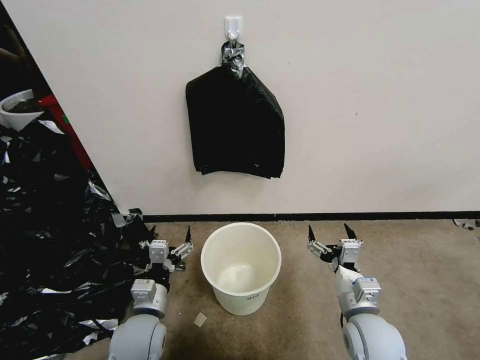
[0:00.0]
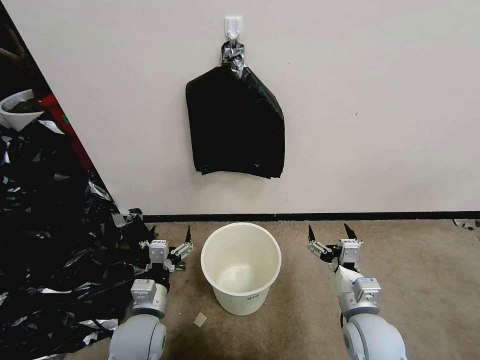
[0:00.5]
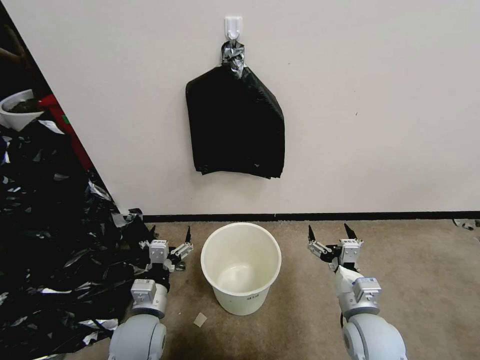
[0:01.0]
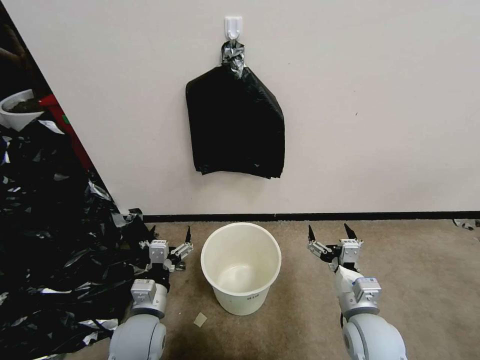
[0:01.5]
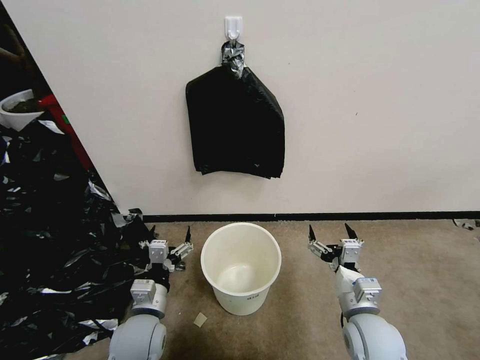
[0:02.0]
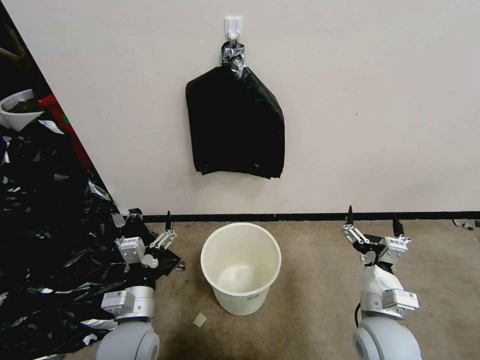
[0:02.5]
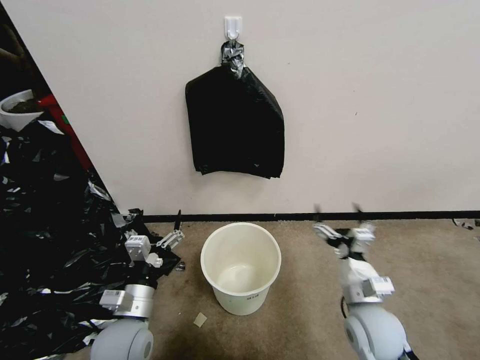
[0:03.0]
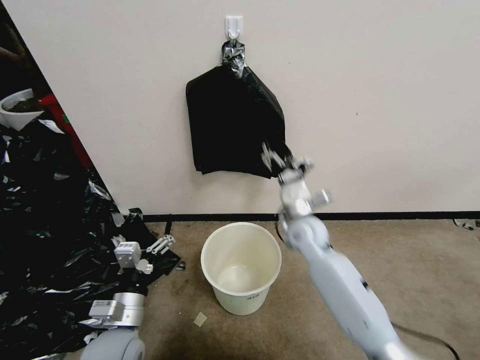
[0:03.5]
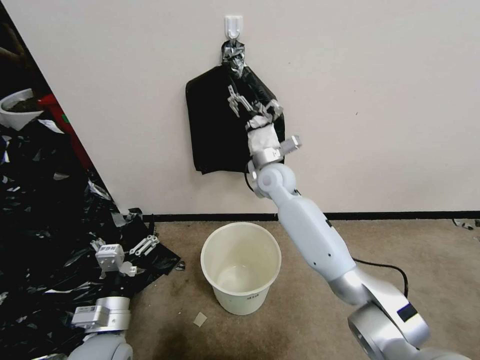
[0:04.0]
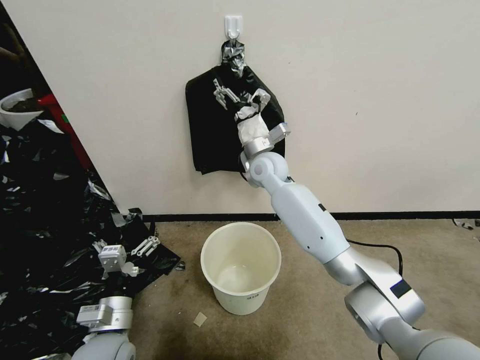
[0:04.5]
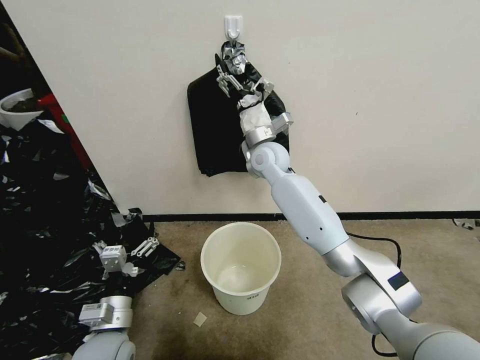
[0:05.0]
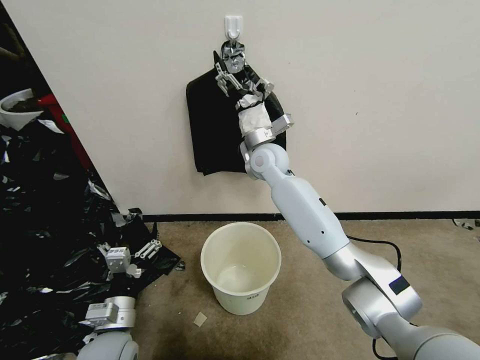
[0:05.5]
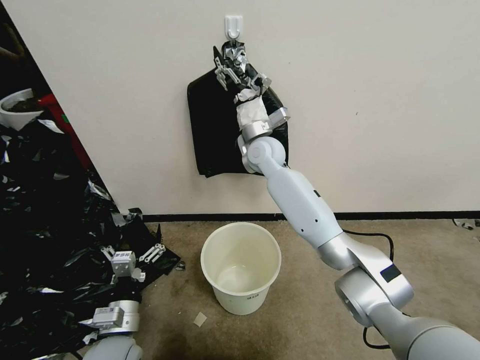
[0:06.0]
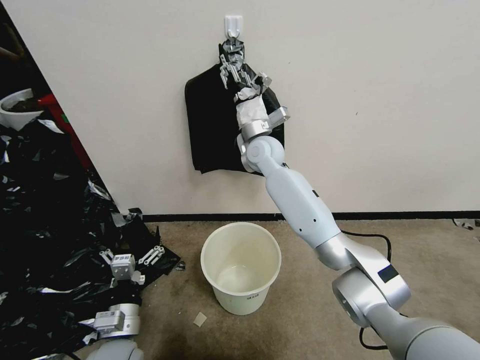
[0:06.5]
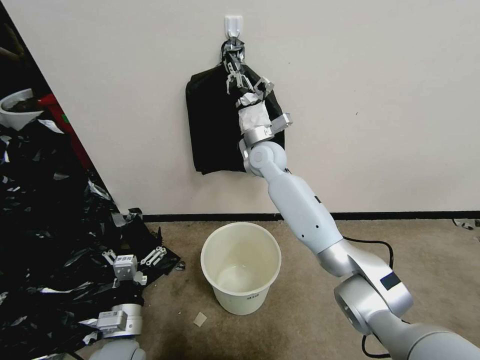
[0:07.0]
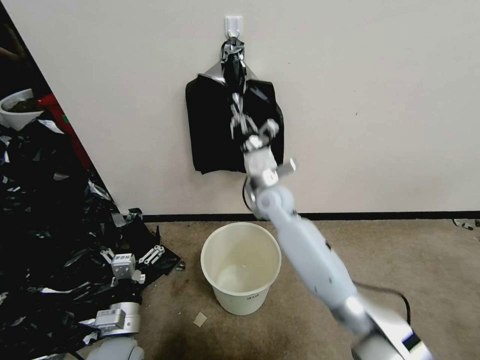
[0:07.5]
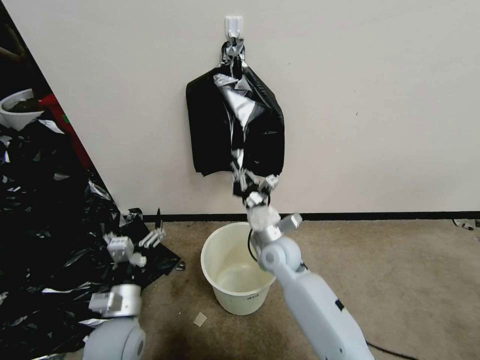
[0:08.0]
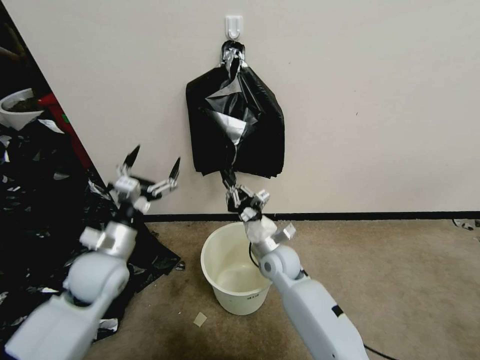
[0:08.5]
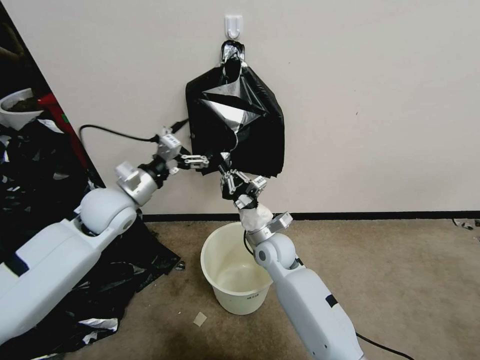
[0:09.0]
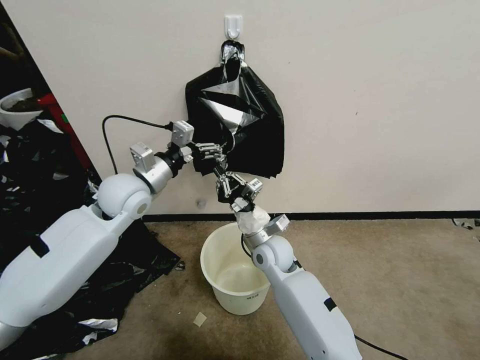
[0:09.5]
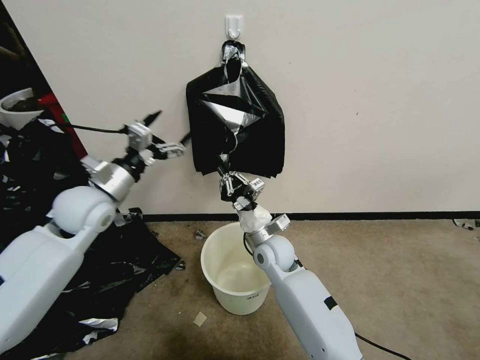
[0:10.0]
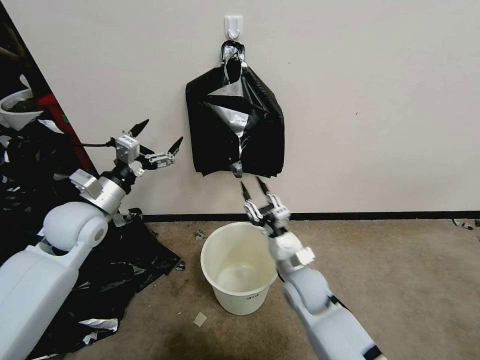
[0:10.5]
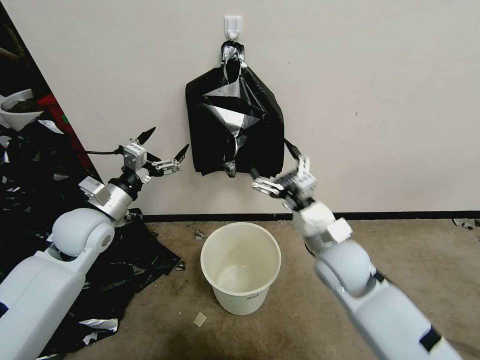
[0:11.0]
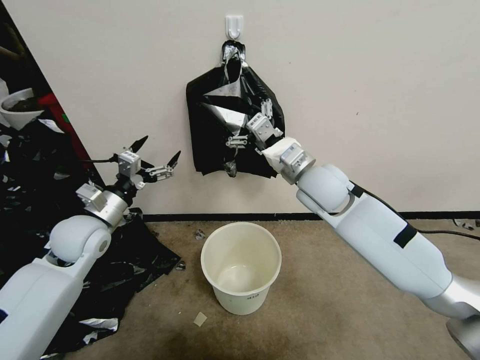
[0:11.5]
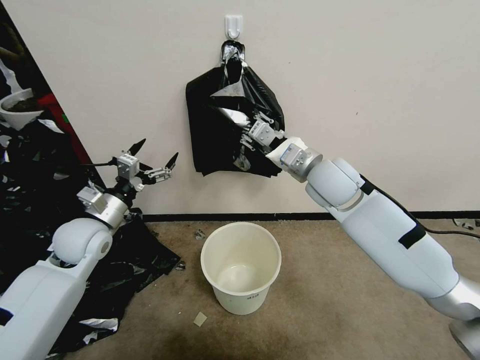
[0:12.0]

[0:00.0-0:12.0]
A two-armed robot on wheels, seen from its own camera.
Task of the whole recording: Place a trash bag onto the trash bin.
0:02.0 to 0:04.0: The left gripper moves approximately 5 cm. The right gripper is displaced forward, to the left and upward by approximately 40 cm.
0:04.0 to 0:06.0: The right gripper changes place by roughly 5 cm.
0:06.0 to 0:08.0: The right gripper is displaced backward and downward by some 25 cm, and closes up.
0:08.0 to 0:10.0: The left gripper travels forward and upward by roughly 25 cm.
0:10.0 to 0:12.0: The left gripper goes some 5 cm downward. Meanwhile the right gripper moves upward and to the right, about 25 cm, and opens its fingers.

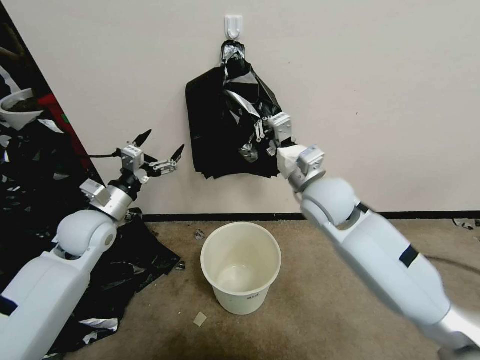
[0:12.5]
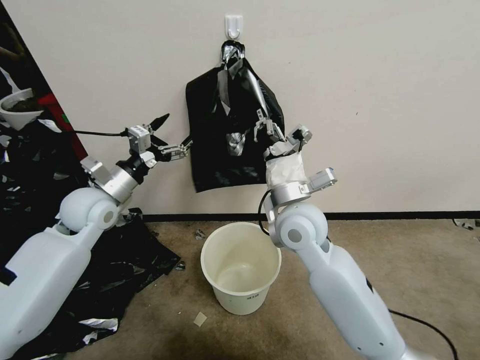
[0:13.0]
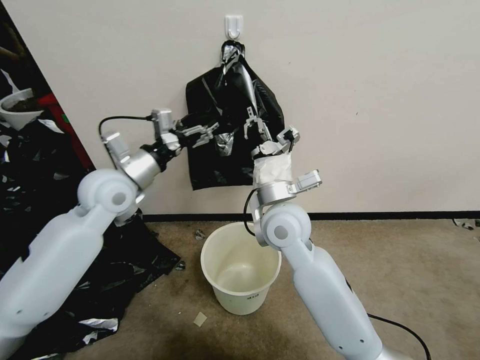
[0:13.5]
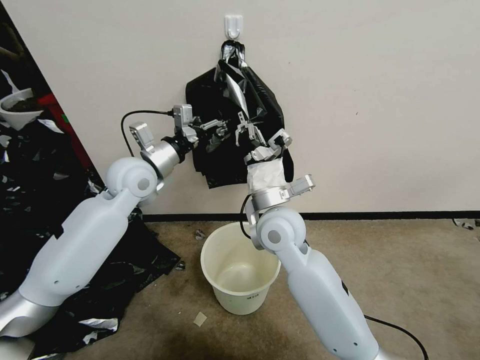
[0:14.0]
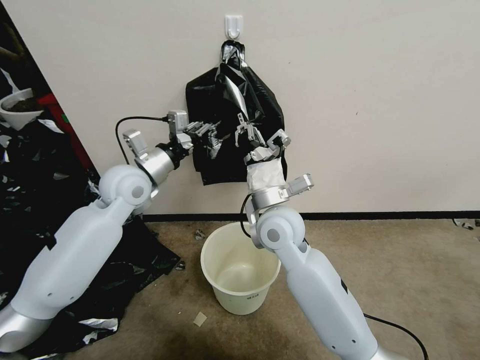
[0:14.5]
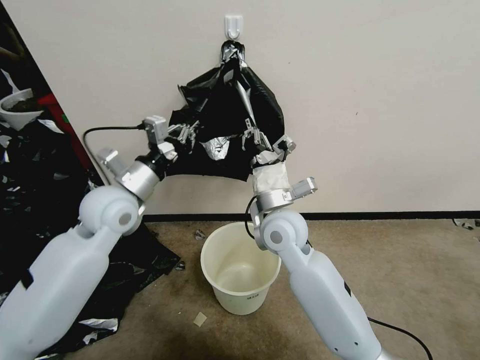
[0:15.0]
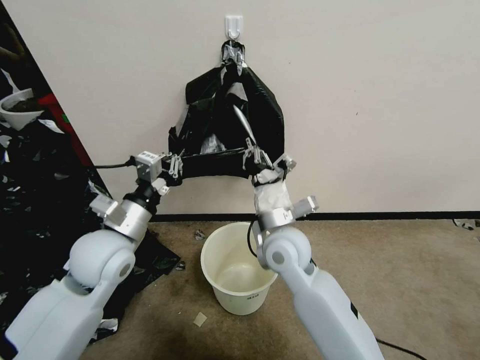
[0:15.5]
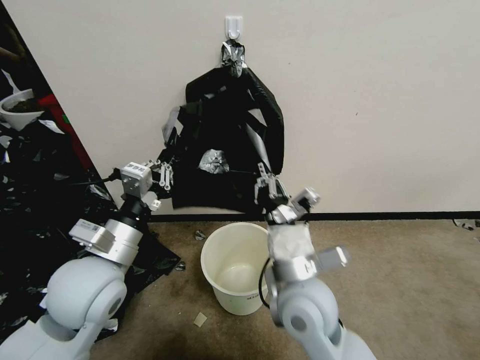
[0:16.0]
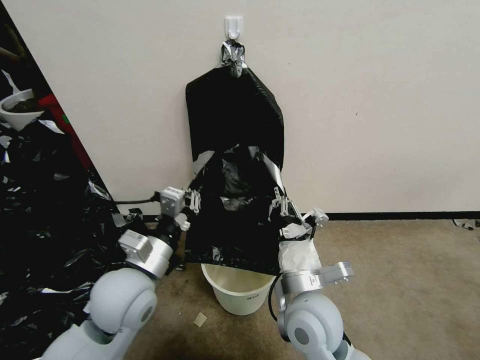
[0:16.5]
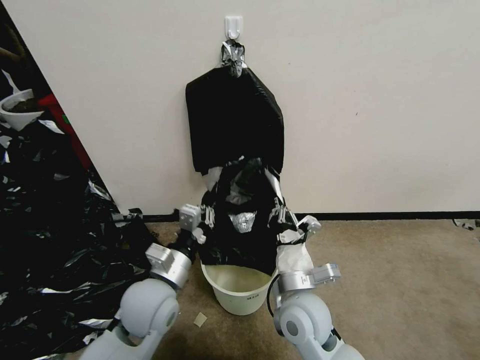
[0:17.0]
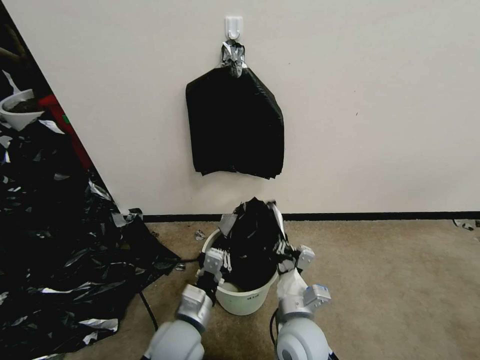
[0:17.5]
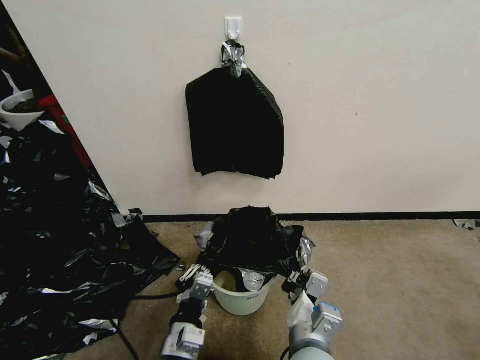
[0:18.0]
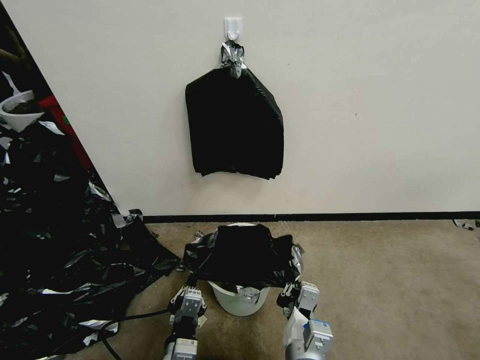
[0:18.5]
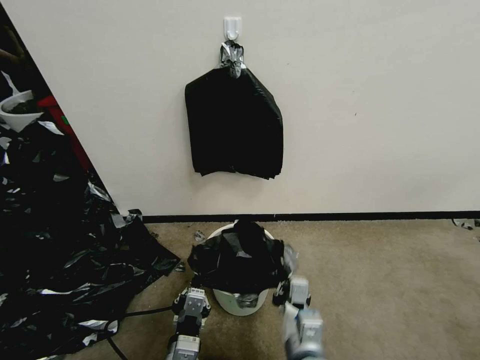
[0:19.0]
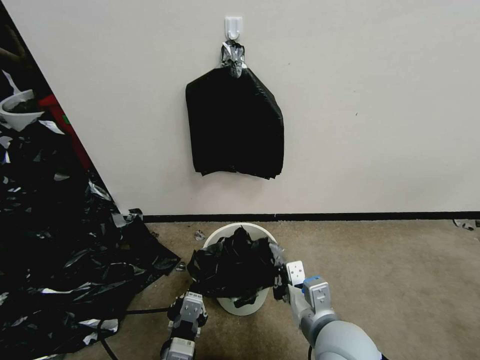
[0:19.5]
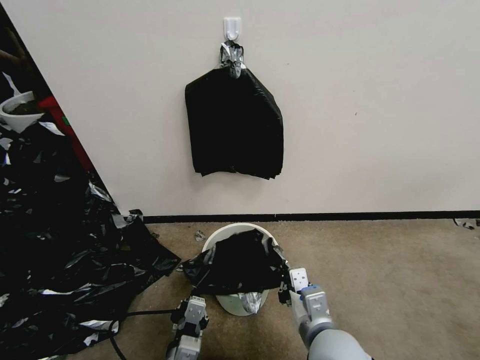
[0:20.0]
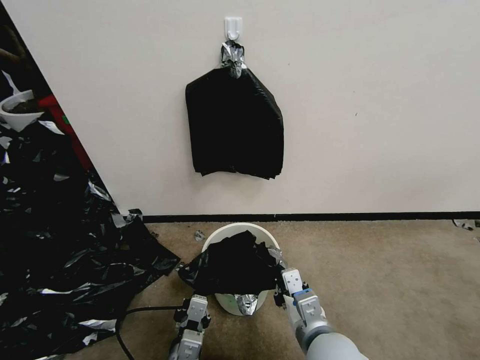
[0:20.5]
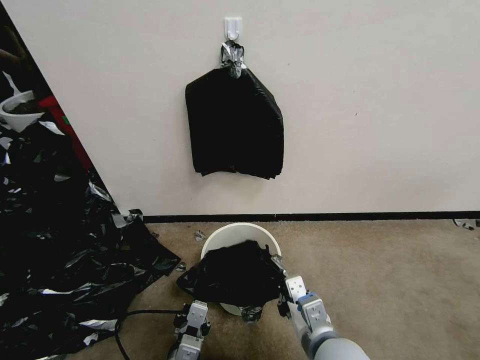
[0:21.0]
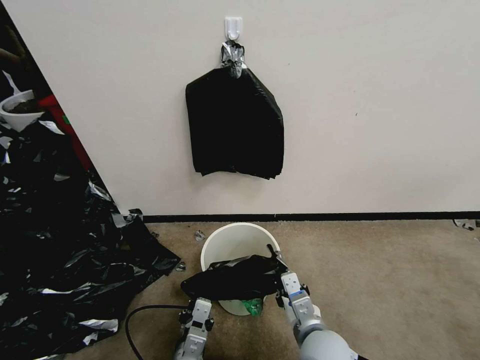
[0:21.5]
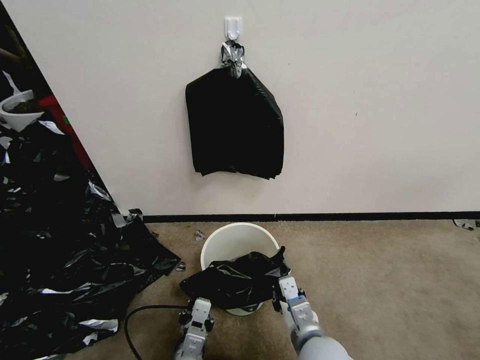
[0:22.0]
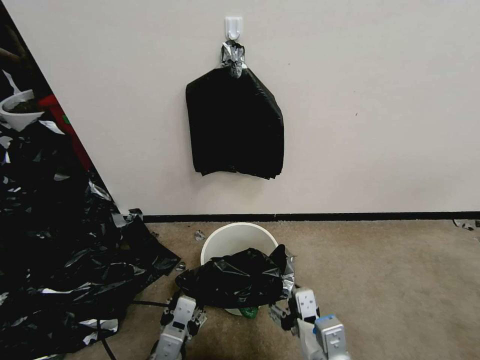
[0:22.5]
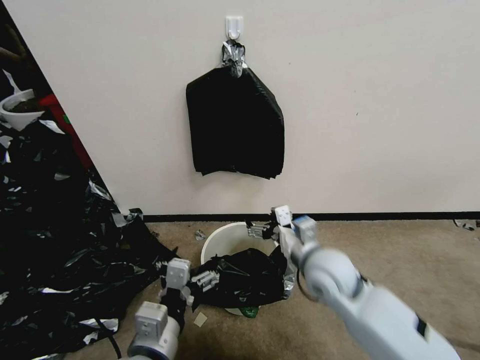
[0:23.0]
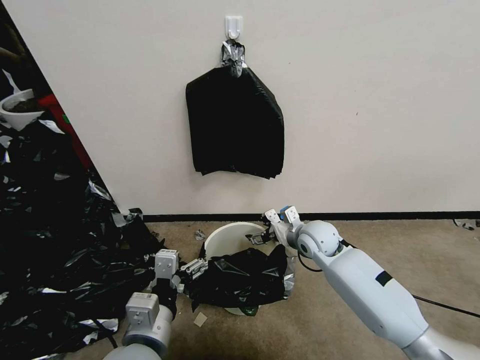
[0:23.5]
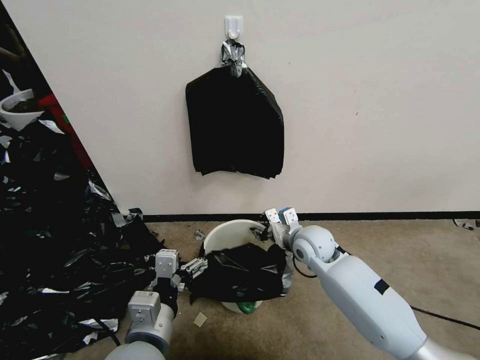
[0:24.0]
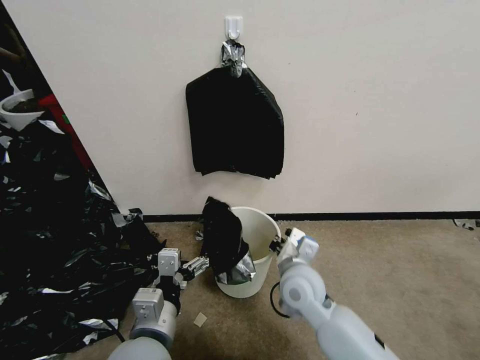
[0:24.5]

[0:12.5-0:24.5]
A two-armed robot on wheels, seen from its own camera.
Task of the whole recording: Place a trash bag onto the trash bin.
0:12.5 to 0:14.5: The right gripper heads to the left, covering approximately 10 cm, while the left gripper is displaced to the right, upward and forward by about 10 cm, and closes.
0:14.5 to 0:16.5: The two grippers go roughly 15 cm backward.
0:16.5 to 0:18.5: The right gripper travels backward and downward by some 15 cm. Meanwhile the left gripper goes roughly 25 cm downward, backward and to the right.
0:18.5 to 0:20.5: The right gripper shifts by some 5 cm.
0:20.5 to 0:22.5: The right gripper travels backward by some 5 cm, travels downward and back again, roughly 5 cm each way, and opens its fingers, while the left gripper heads upward, covering roughly 5 cm, and opens up.
0:22.5 to 0:24.5: The left gripper goes roughly 5 cm upward, and opens up. Meanwhile the right gripper heads forward, covering some 20 cm, and closes up.

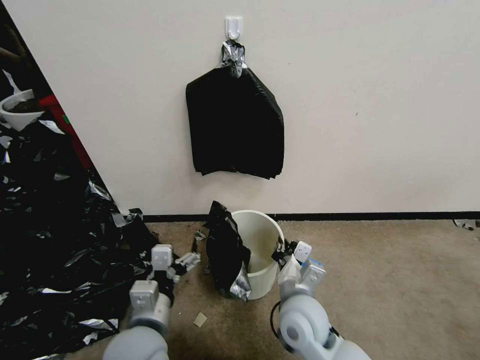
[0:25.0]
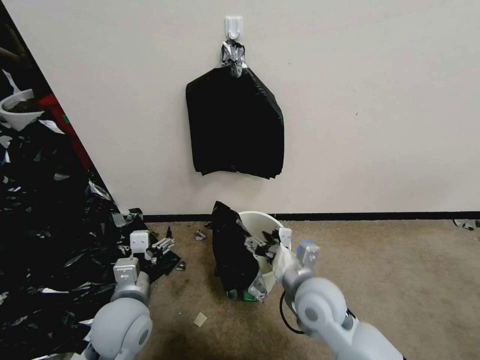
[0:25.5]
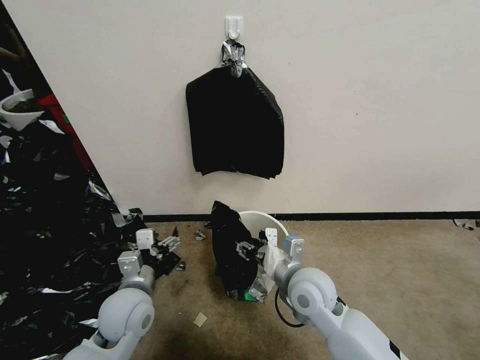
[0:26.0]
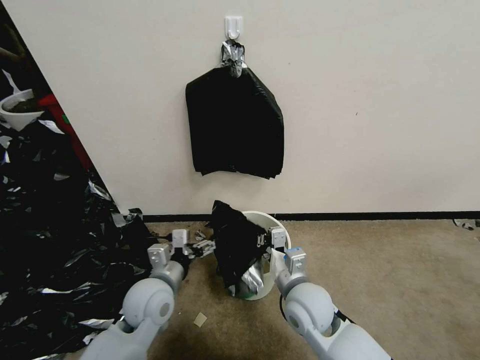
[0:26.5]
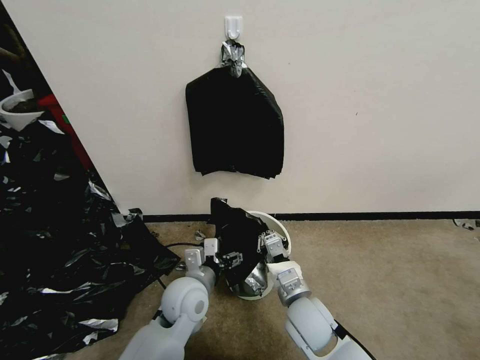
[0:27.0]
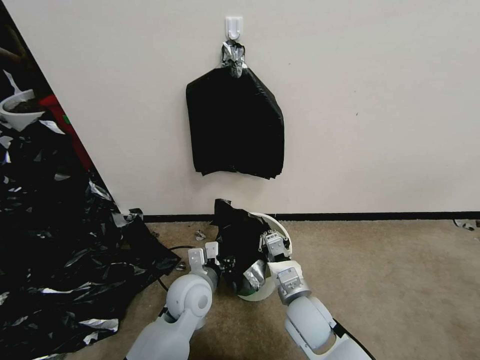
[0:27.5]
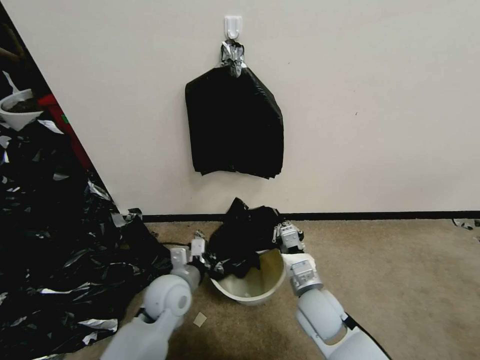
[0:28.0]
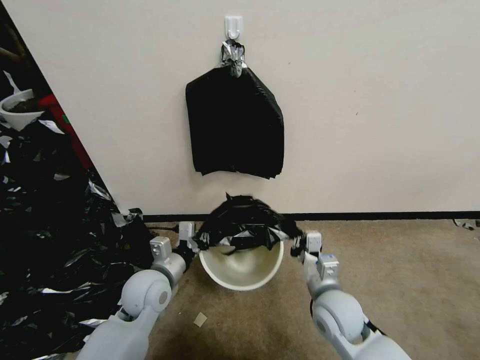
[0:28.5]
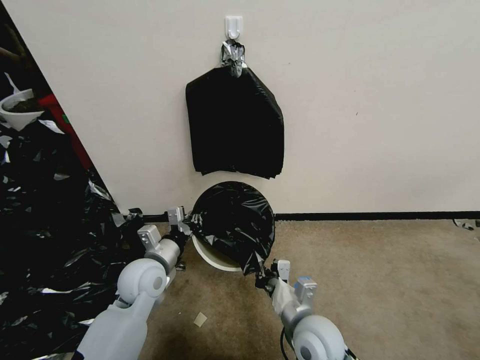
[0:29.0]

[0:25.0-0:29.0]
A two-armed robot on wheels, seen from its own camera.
Task of the whole recording: Place a trash bag onto the trash bin.
0:25.0 to 0:27.0: The right gripper opens, then closes again. Meanwhile the left gripper shifts about 10 cm forward and downward.
0:27.0 to 0:29.0: The left gripper travels to the left by roughly 10 cm, and closes up.
